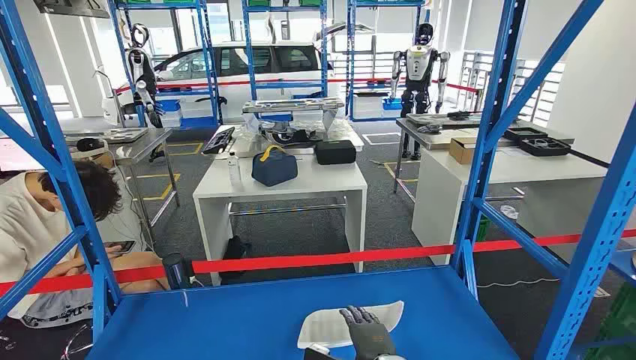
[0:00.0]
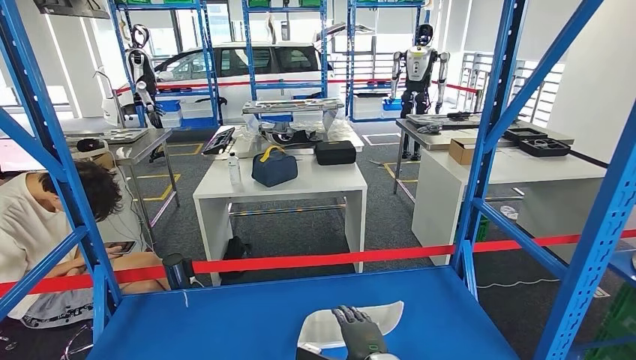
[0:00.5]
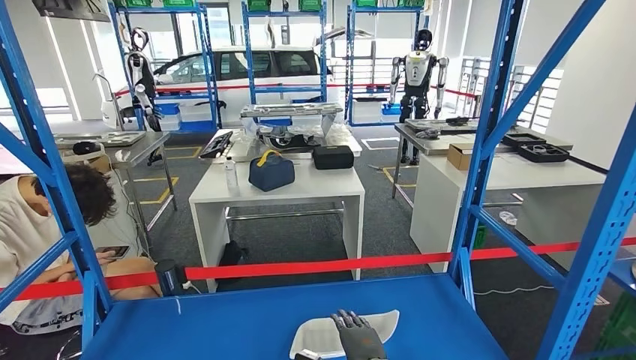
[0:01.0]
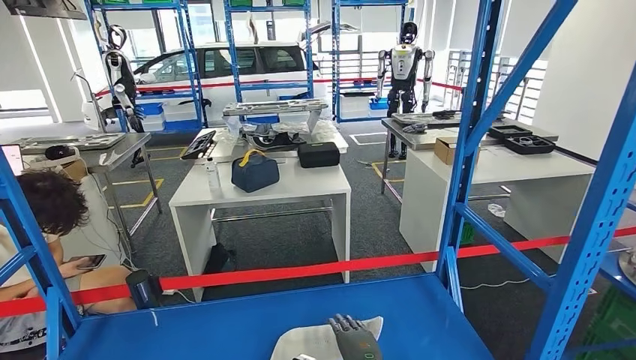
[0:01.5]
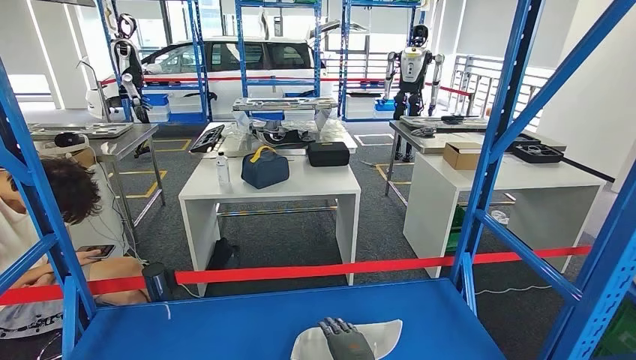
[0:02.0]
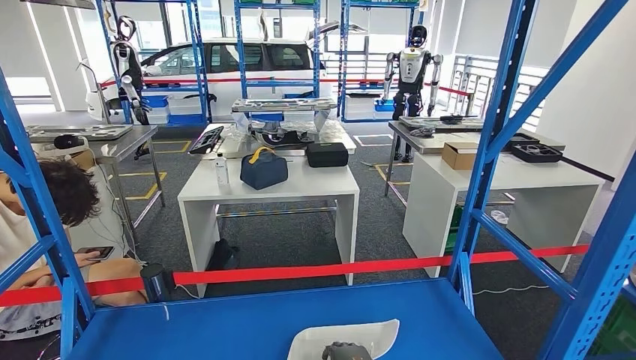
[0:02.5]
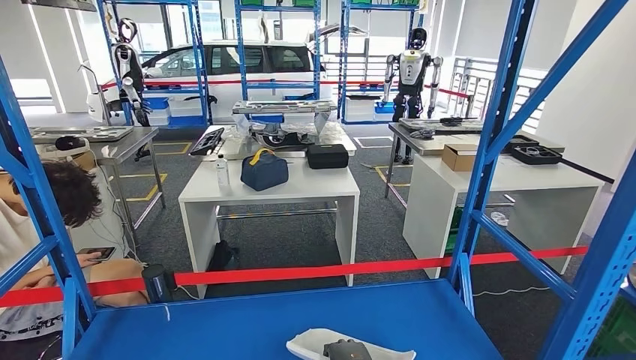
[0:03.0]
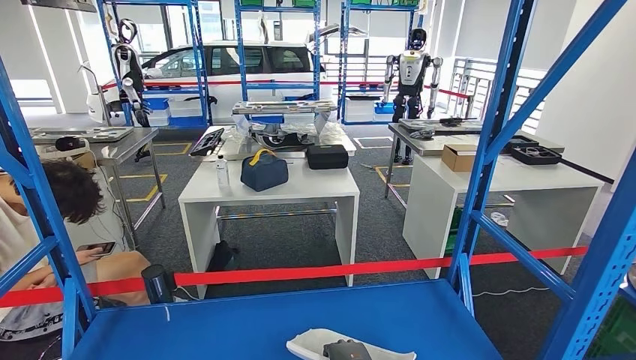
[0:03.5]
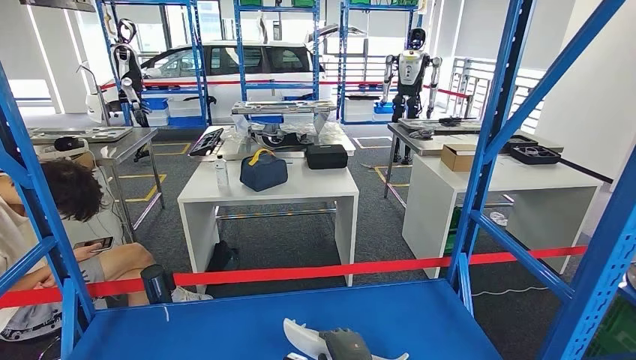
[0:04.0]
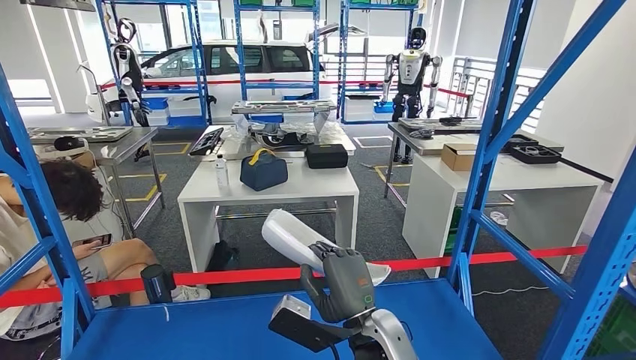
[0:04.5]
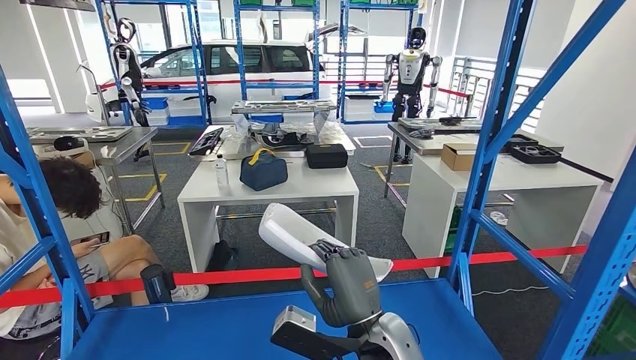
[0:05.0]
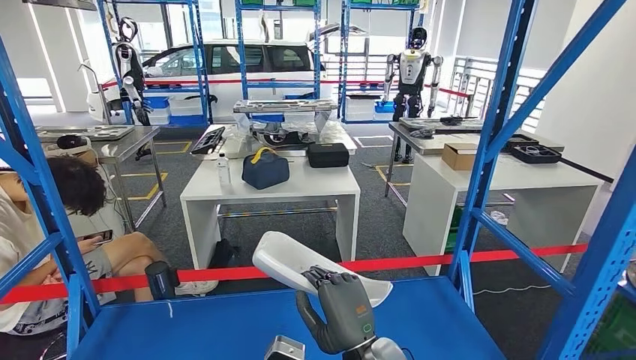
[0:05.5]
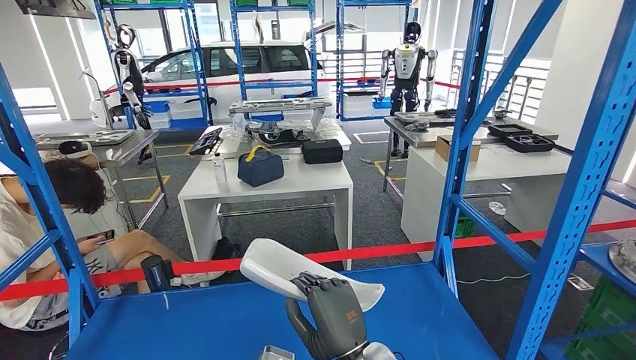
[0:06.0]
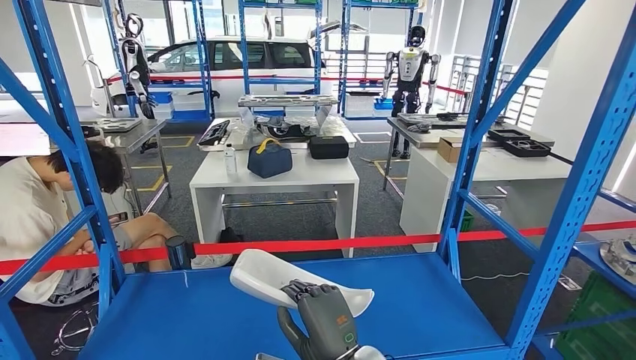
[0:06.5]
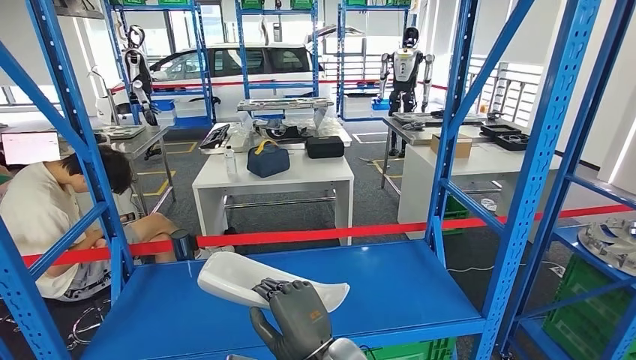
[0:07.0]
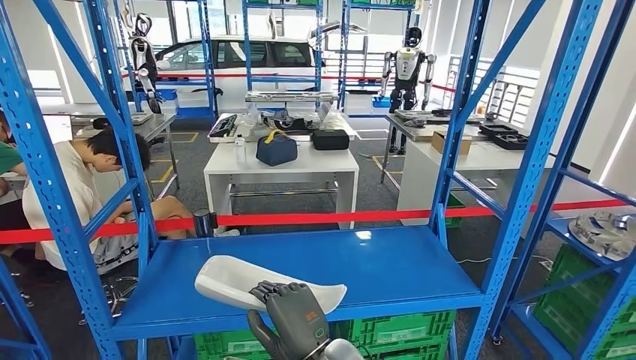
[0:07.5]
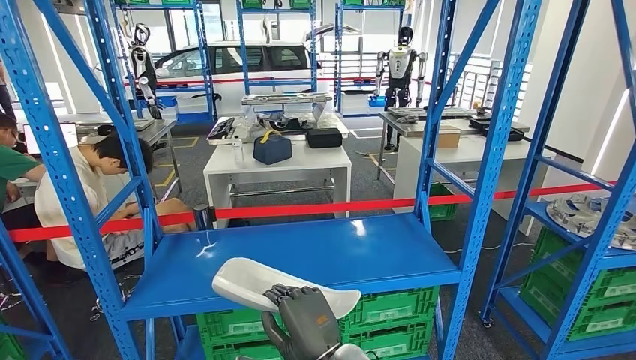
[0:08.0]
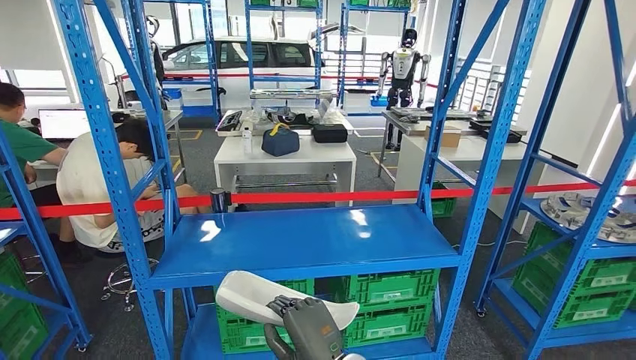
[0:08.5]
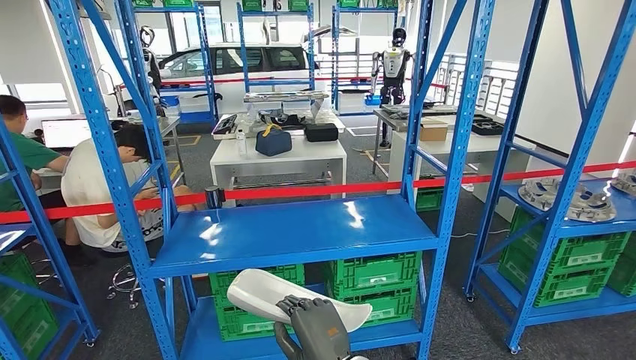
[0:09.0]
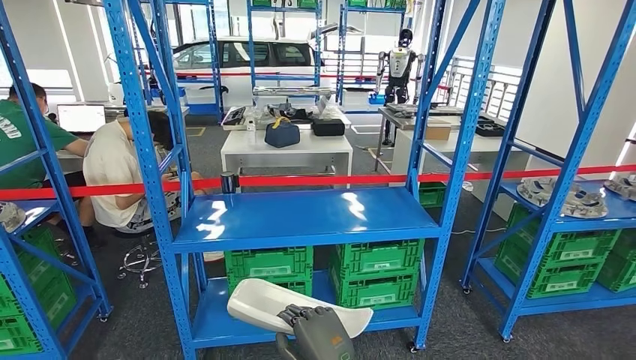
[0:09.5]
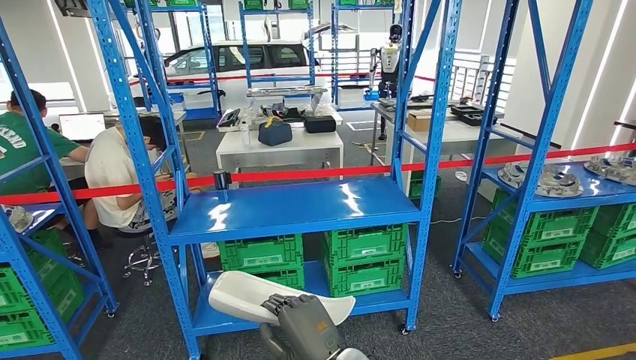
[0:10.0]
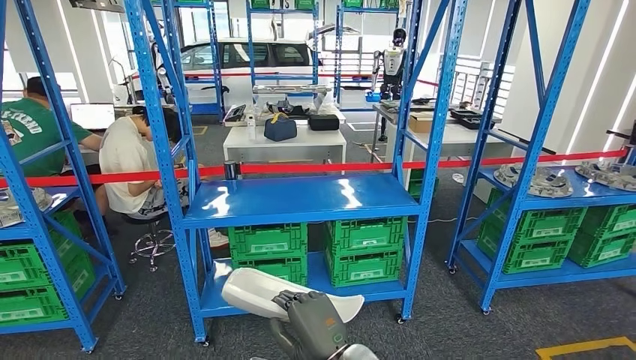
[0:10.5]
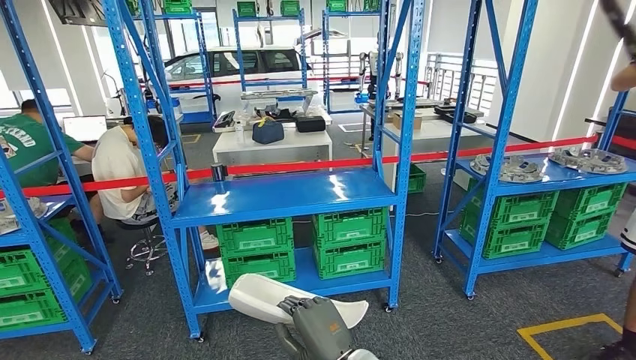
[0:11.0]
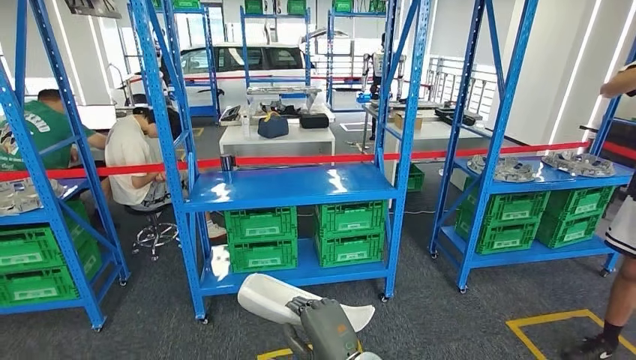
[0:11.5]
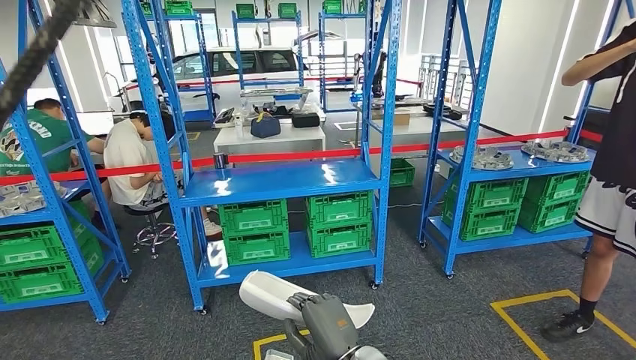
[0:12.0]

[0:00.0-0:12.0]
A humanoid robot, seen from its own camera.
Step, 0:00.0 to 0:06.0: Pick up the small component from the shelf.

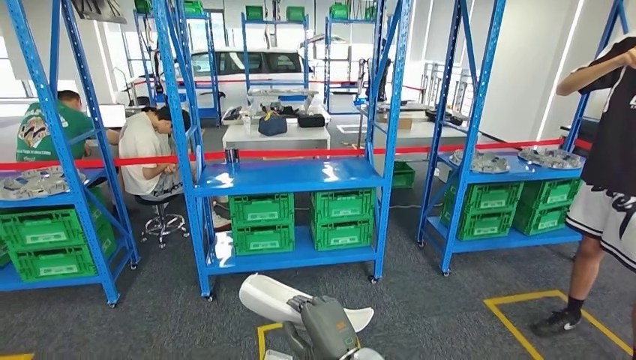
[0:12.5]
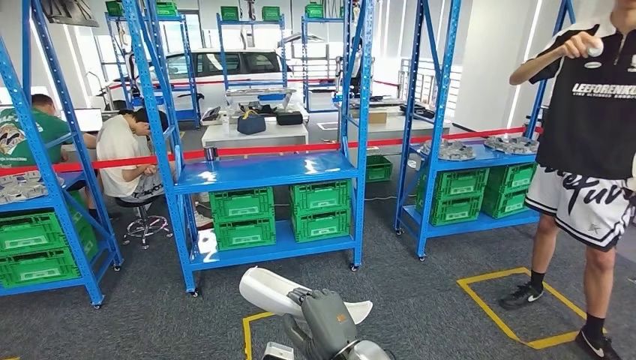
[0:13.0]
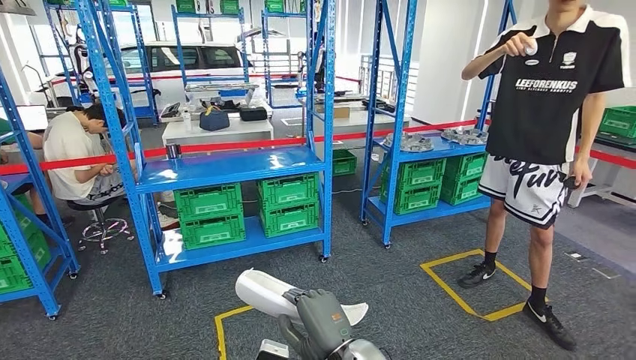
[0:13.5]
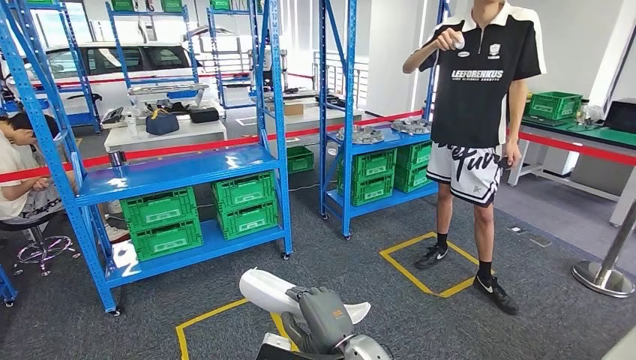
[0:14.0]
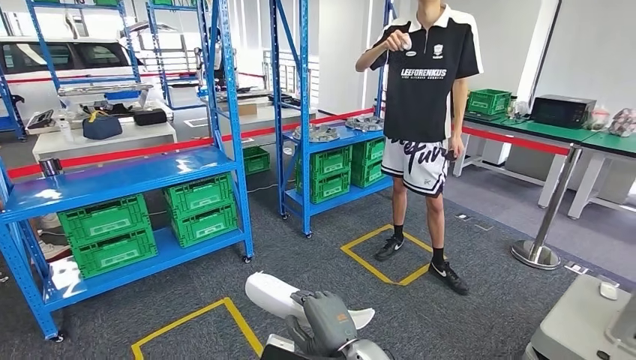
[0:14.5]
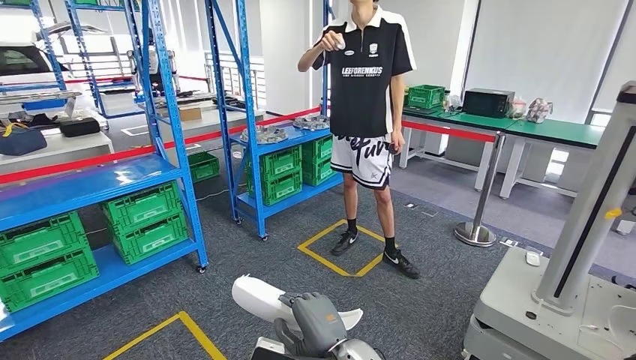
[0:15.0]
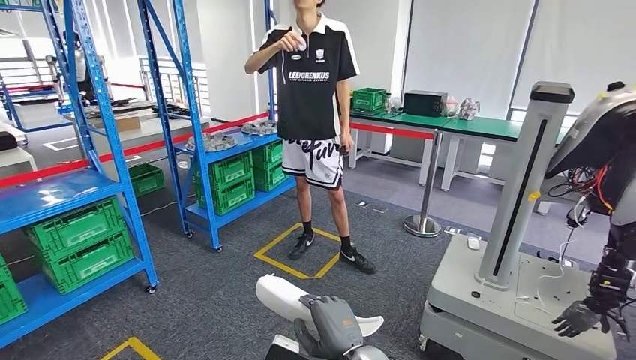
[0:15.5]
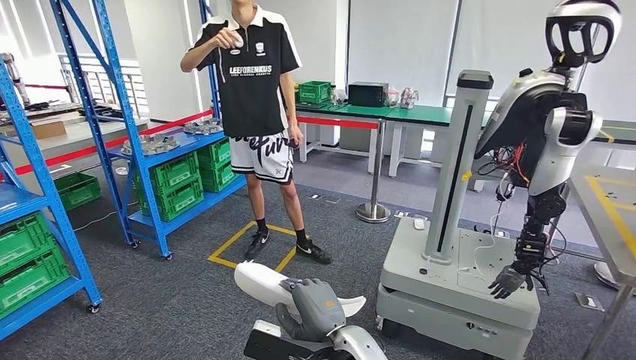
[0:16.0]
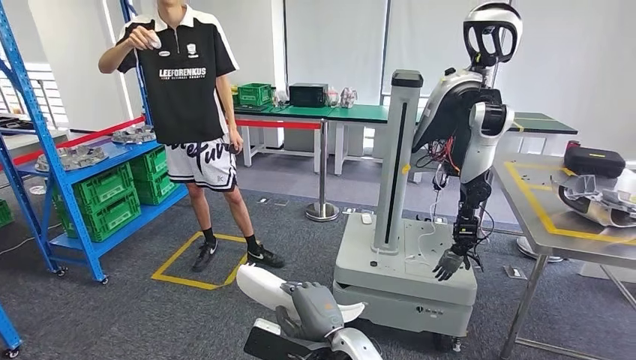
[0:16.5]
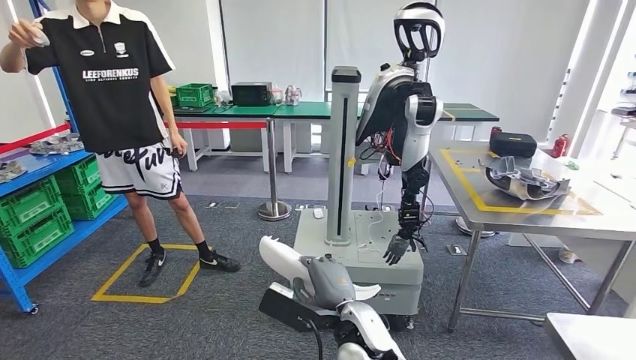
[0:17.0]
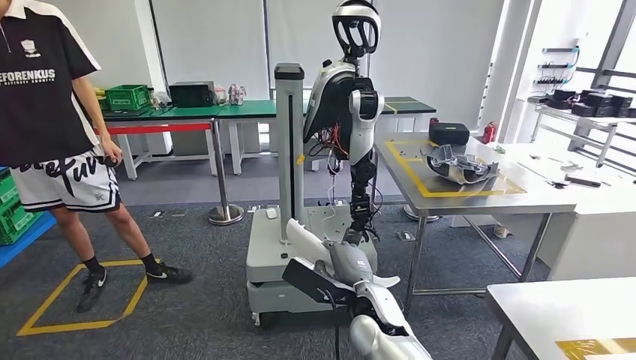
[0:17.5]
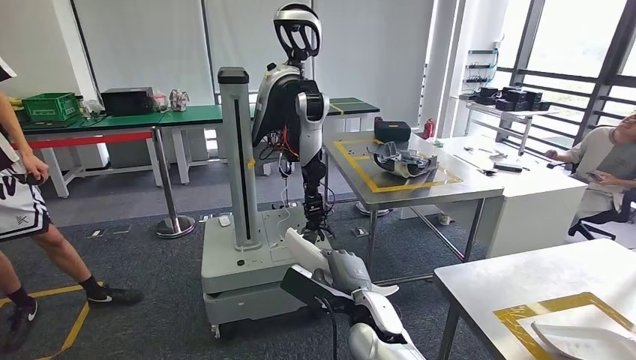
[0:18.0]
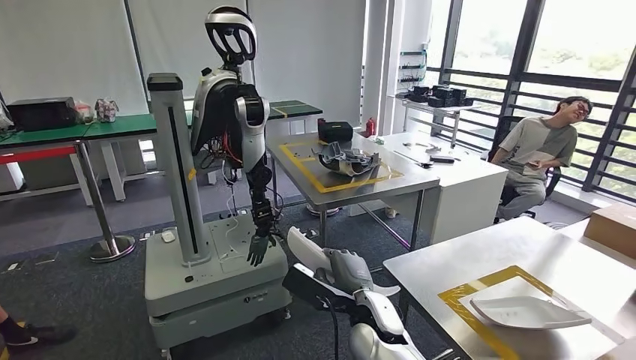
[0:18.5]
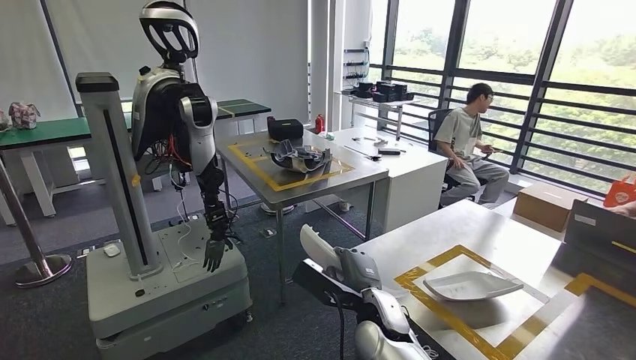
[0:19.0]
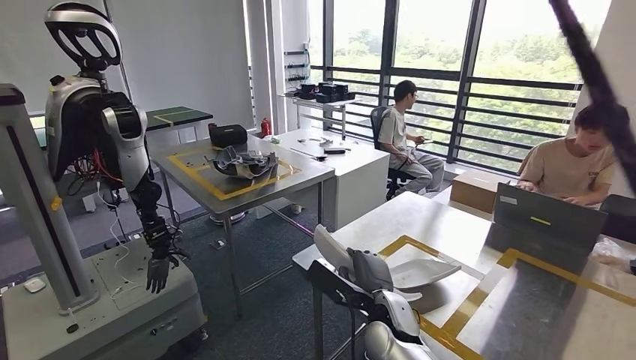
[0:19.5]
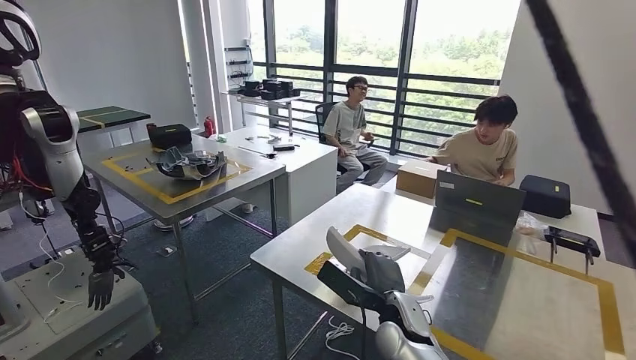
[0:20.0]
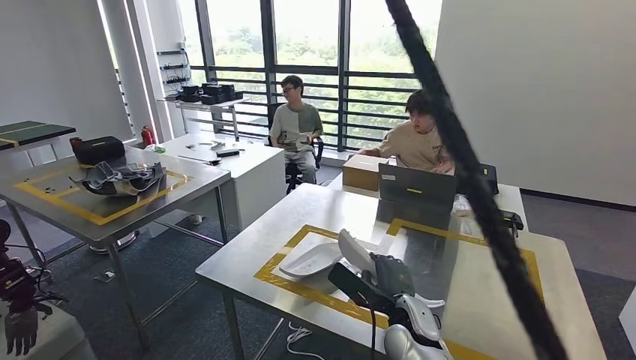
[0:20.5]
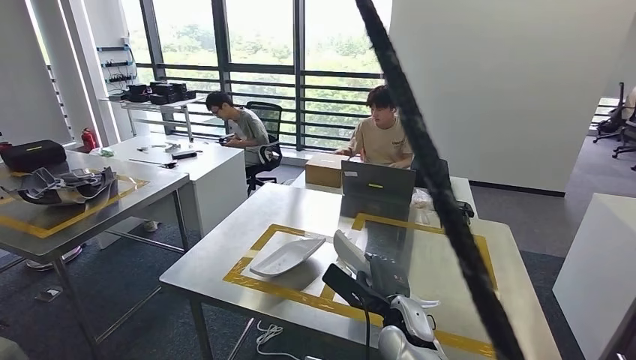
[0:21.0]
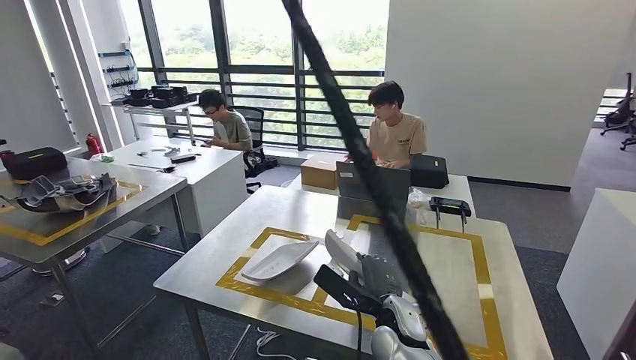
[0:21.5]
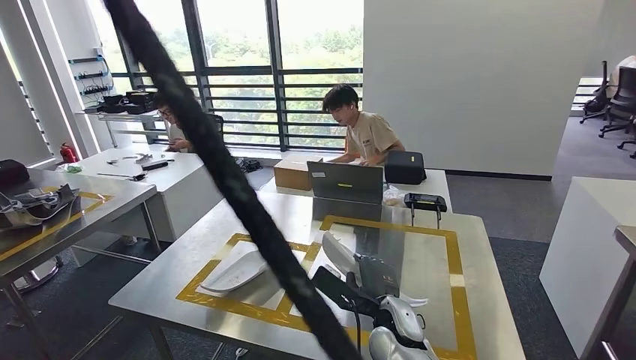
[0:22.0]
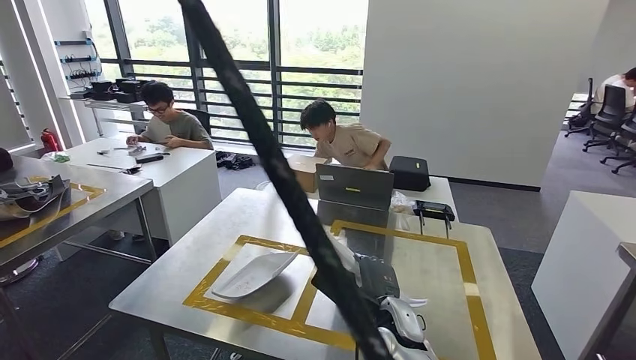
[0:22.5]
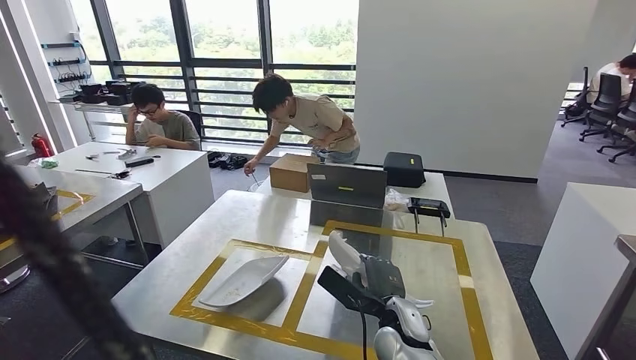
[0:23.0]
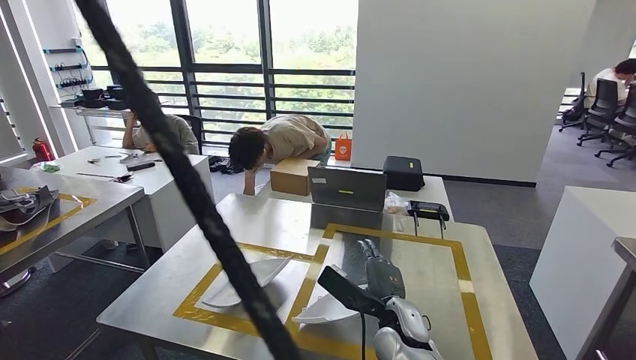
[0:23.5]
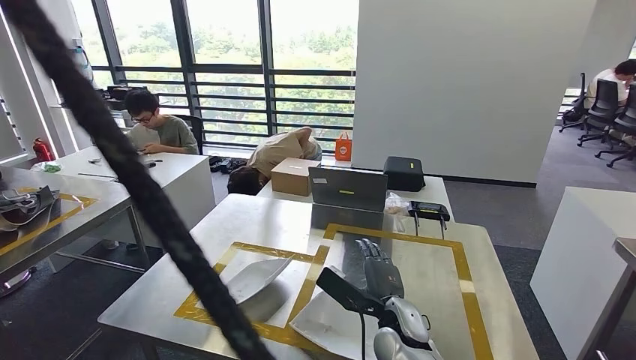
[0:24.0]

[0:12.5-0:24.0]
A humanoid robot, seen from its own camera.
Step, 0:12.5 to 0:19.5: Move the small component to the workbench.
